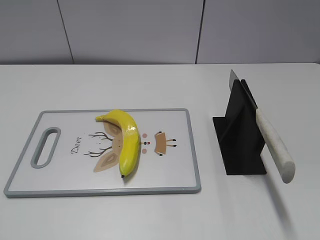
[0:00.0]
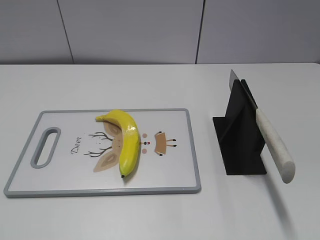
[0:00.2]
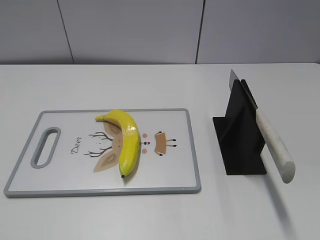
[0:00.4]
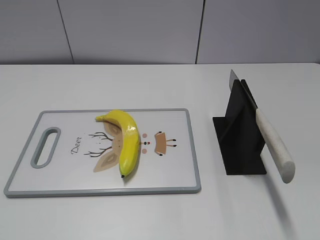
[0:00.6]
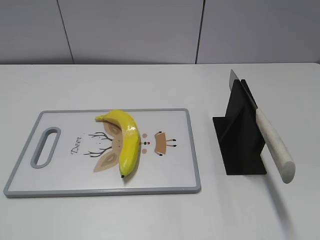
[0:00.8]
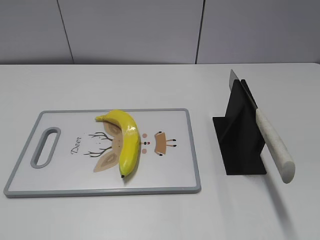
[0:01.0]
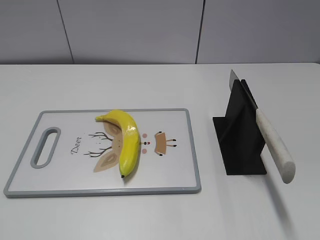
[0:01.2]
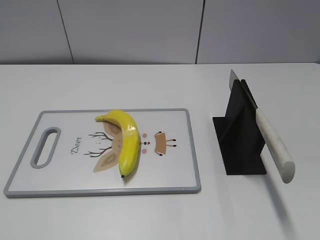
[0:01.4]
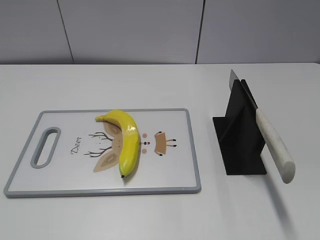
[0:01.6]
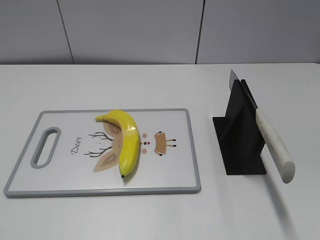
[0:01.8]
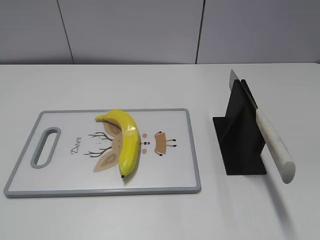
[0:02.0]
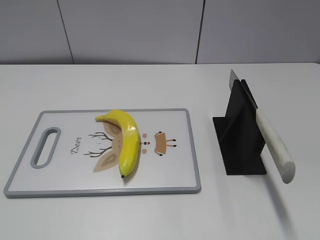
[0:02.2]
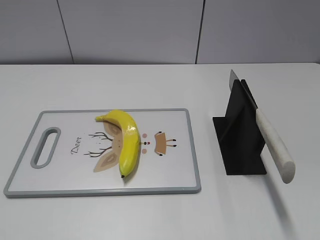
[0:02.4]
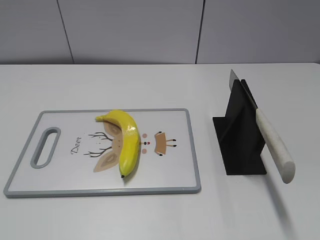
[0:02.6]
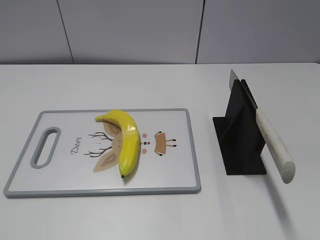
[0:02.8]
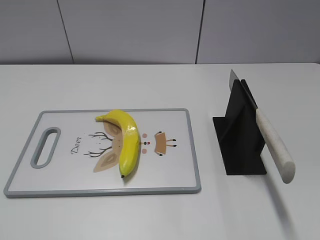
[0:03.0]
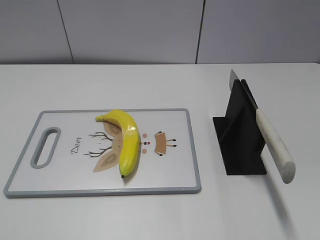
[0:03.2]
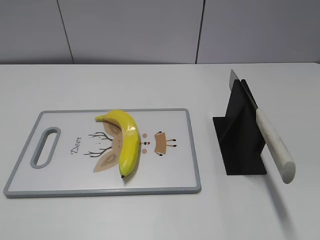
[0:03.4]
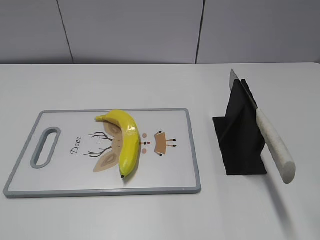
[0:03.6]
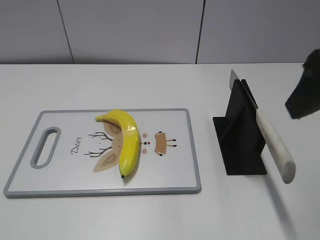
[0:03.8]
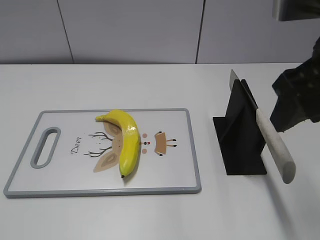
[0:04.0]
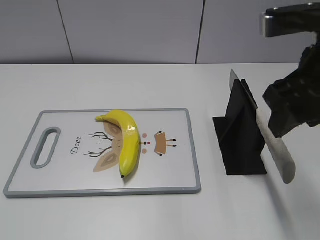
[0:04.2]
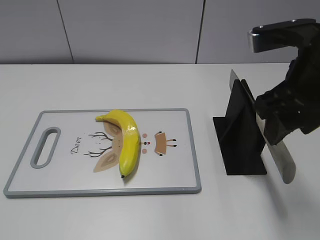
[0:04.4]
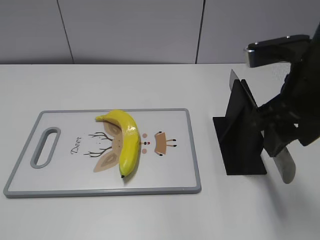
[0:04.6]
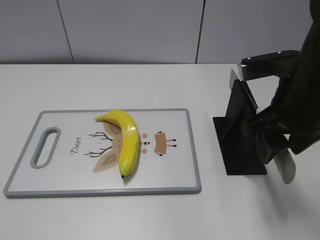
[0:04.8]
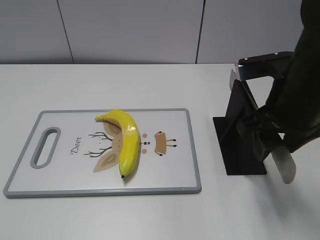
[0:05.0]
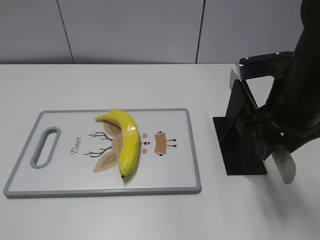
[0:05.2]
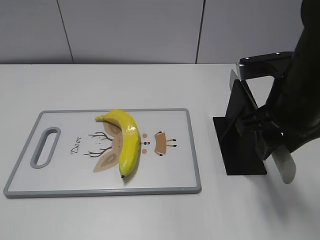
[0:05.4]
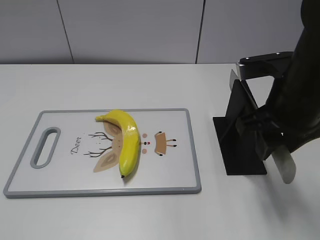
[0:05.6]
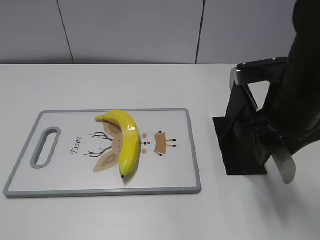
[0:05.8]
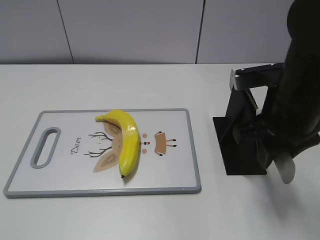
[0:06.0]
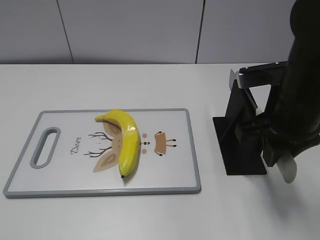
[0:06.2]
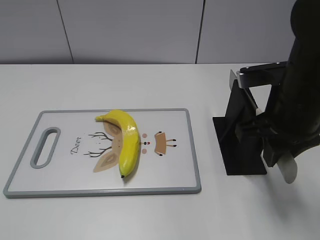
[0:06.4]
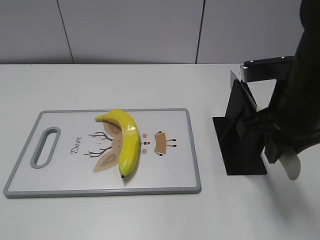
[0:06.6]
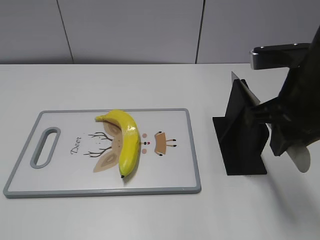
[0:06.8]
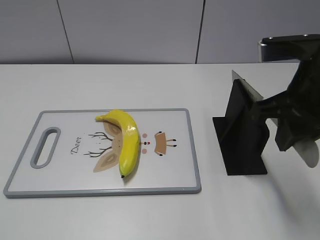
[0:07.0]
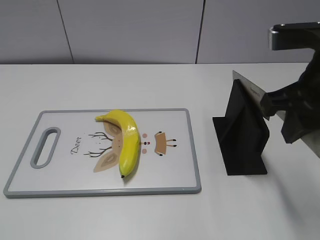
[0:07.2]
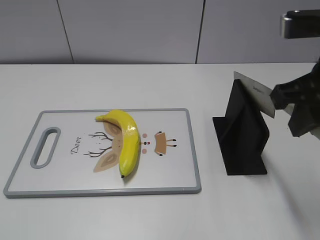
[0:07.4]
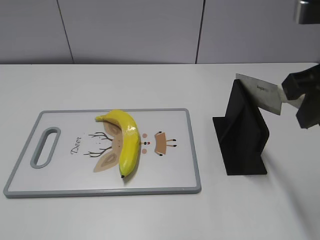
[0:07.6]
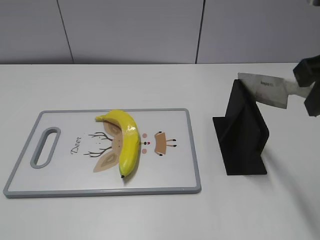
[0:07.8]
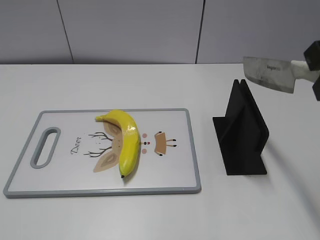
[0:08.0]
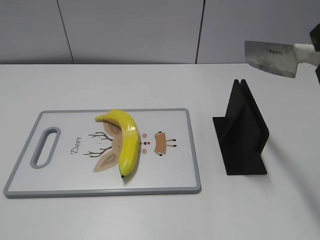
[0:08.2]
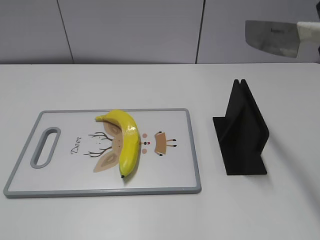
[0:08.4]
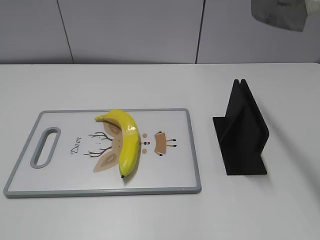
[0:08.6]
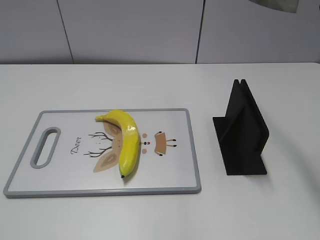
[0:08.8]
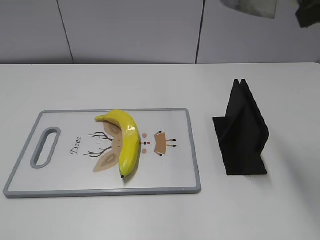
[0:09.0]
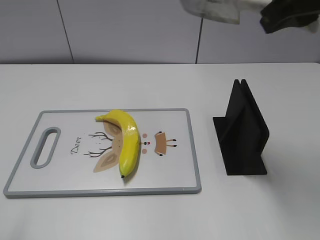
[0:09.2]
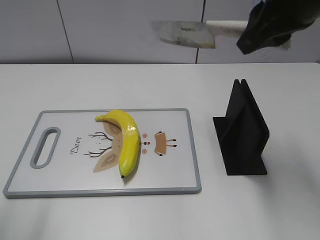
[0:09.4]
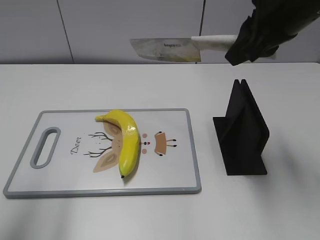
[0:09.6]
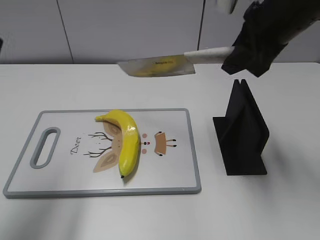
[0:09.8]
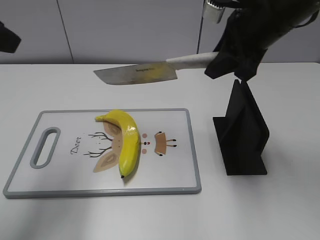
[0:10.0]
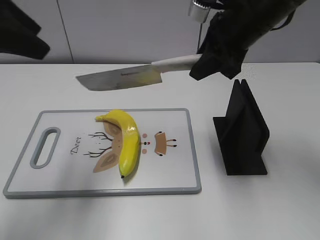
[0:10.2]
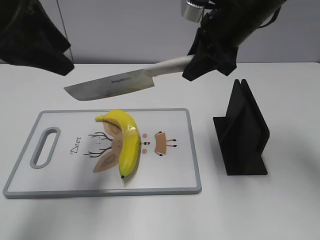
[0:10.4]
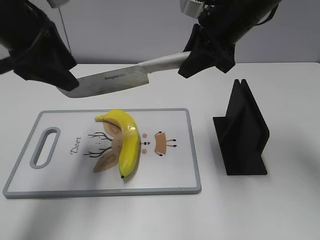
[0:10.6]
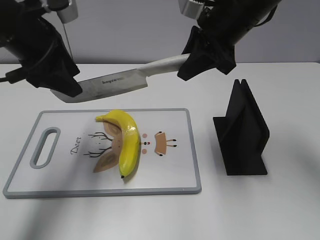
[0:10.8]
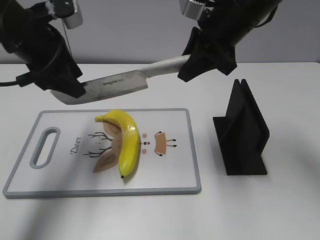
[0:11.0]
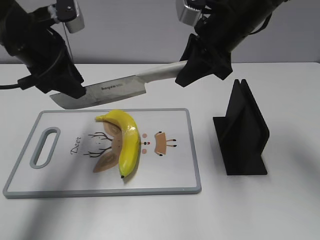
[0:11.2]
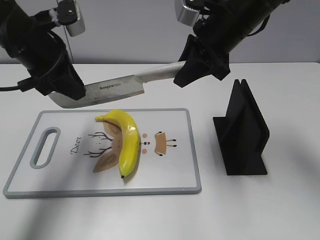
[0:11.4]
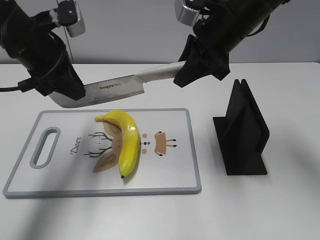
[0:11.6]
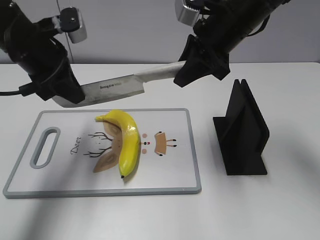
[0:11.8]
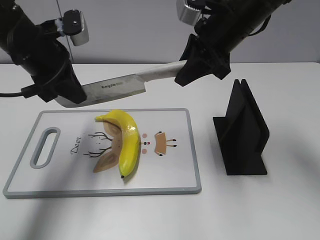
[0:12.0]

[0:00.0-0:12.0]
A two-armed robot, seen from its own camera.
Task of the whole recording: cut plastic banana.
Step, 0:00.0 to 0:07.6: Grab the knife handle with your right hand.
0:03.0 to 0:04.4: The right gripper goes approximately 20 cm forward, to the left and downward.
0:04.4 to 0:06.0: The right gripper goes some 5 cm downward, and closes up.
0:06.0 to 0:07.6: The right gripper is displaced upward by some 10 cm.
0:07.6 to 0:09.0: The right gripper heads upward, covering roughly 10 cm.
0:09.0 to 0:10.4: The right gripper travels forward, downward and to the left by roughly 20 cm; the left gripper travels forward and to the right by roughly 30 cm.
0:10.4 to 0:12.0: The left gripper moves downward and forward, roughly 10 cm, and closes up.

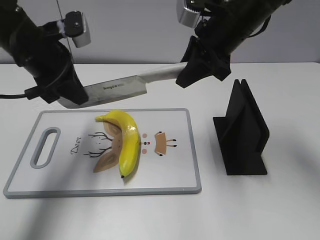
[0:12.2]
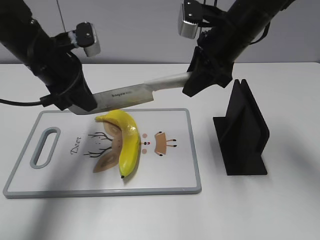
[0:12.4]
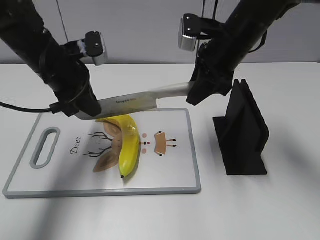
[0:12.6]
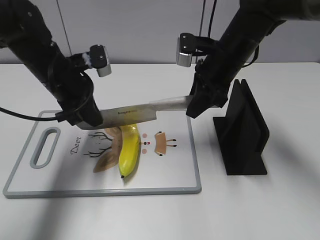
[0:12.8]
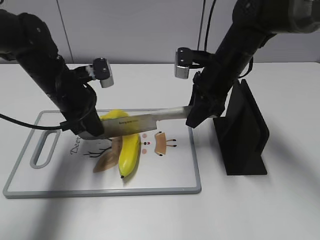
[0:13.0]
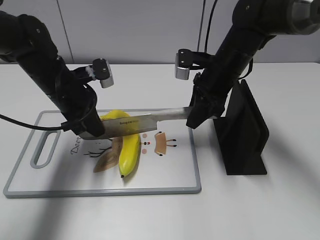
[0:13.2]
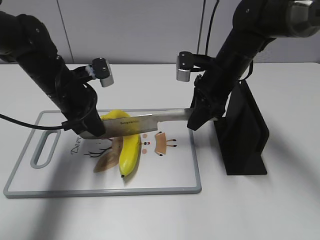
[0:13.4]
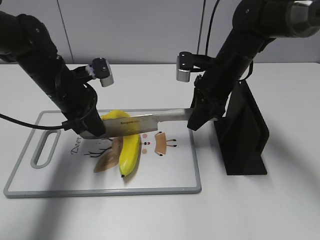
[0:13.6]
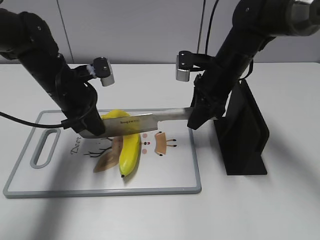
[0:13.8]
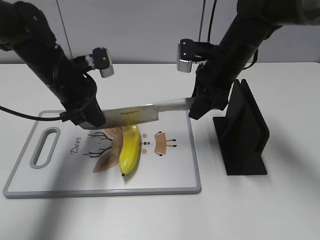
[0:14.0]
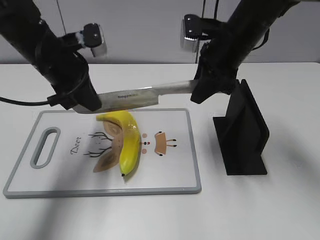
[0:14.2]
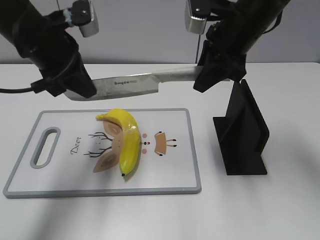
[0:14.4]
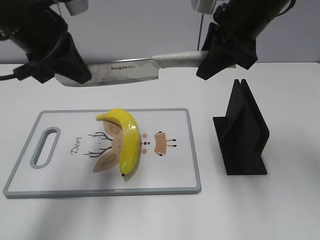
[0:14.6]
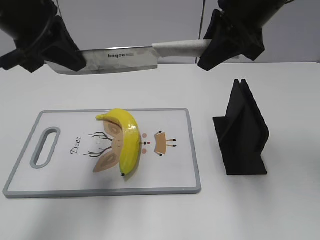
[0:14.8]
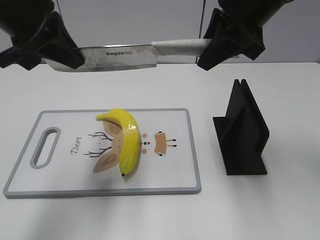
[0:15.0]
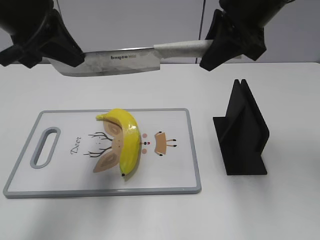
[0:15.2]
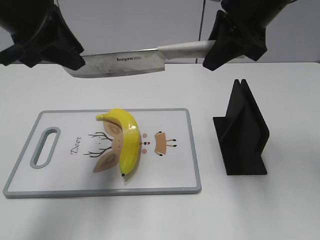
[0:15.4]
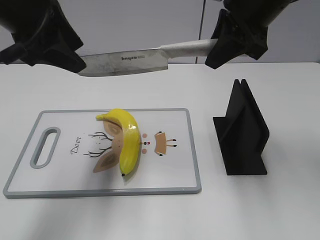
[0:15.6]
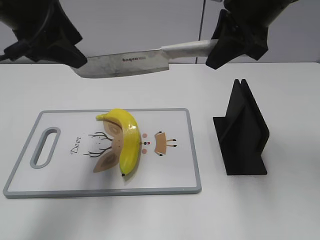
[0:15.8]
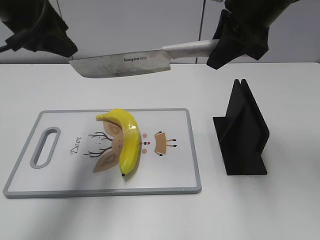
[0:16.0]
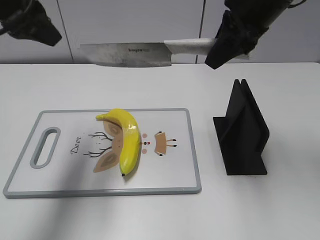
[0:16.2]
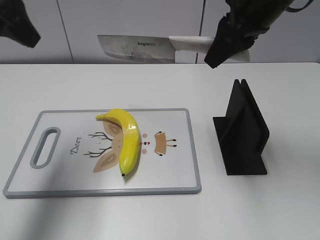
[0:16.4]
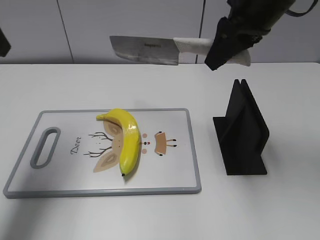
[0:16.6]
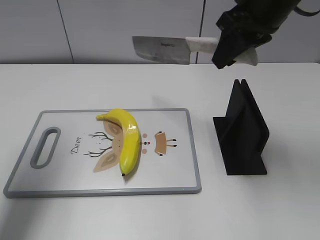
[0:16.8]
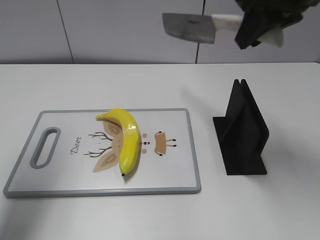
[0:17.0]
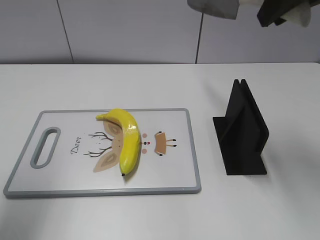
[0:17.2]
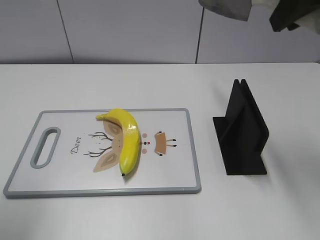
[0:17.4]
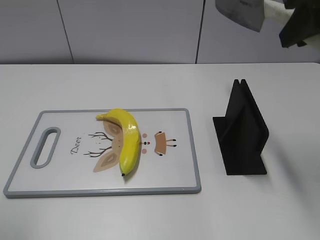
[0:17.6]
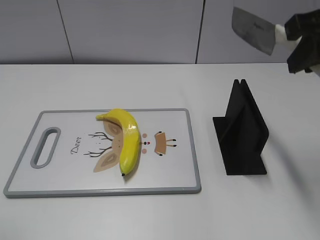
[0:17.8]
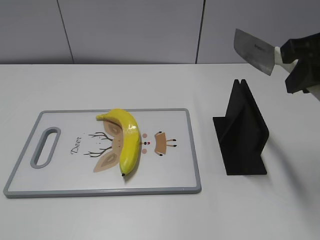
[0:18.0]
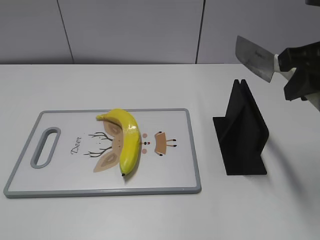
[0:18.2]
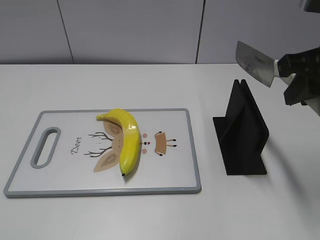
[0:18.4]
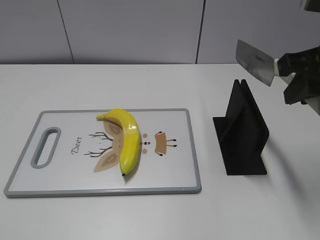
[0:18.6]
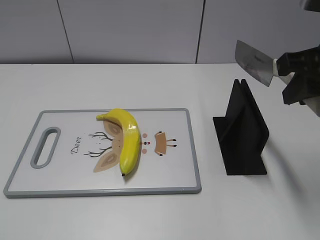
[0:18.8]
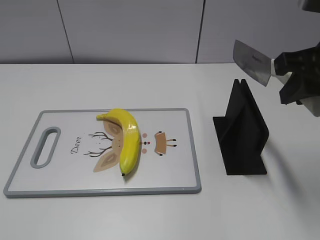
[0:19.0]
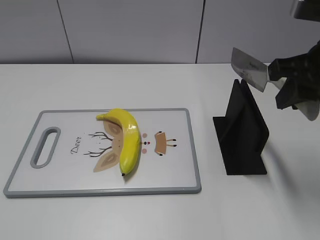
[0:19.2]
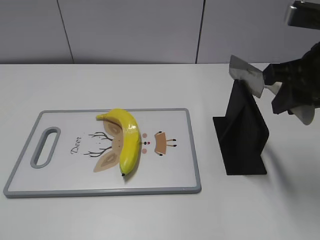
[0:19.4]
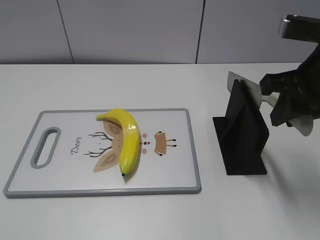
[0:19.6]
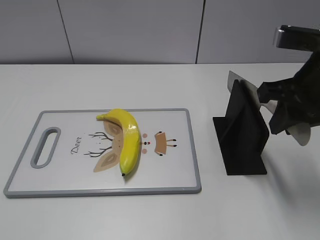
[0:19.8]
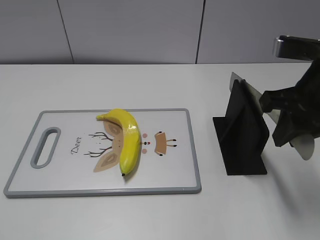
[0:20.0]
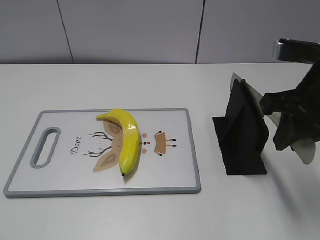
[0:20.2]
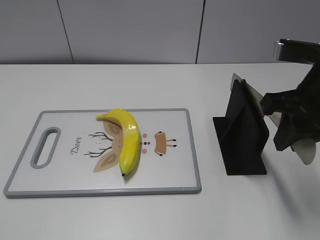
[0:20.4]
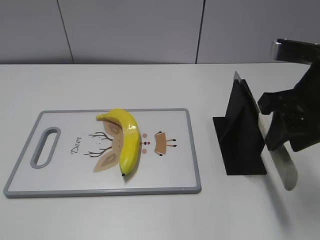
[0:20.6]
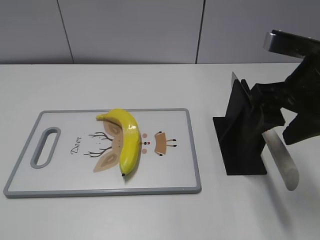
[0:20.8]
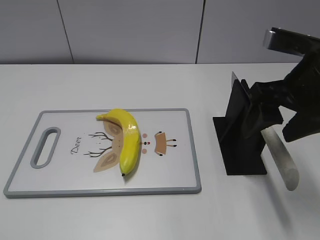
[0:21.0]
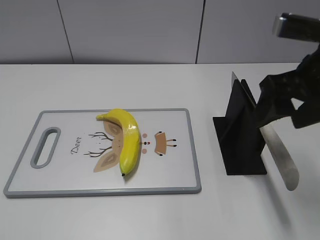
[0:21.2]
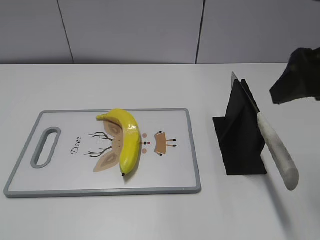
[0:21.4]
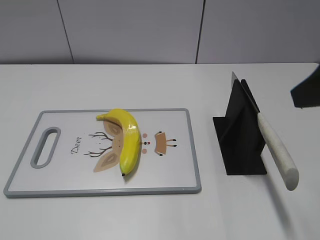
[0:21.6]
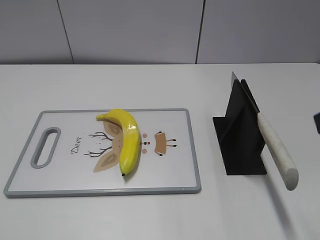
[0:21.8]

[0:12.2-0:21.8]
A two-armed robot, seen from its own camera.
Task of the whole recording: cut plastic banana.
Step, 0:12.2 to 0:15.0: Lift the knife with your right hand.
Step, 0:15.2 to 0:17.0: Cut the banana with your right hand.
Step, 0:17.2 to 0:19.2: Lift the knife with your right hand.
0:12.2 to 0:13.8: Both grippers travel together downward, about 10 cm.
0:13.8 to 0:15.4: The two grippers go approximately 15 cm upward. The left gripper opens.
0:15.4 to 0:17.0: The left gripper goes about 10 cm to the left, and opens. The right gripper ends up about 5 cm from where it was.
0:17.0 to 0:18.6: The left gripper heads backward, covering approximately 25 cm. Meanwhile the right gripper travels backward and downward by roughly 10 cm.
0:20.2 to 0:21.8: The right gripper travels backward and upward by approximately 10 cm, and opens.
